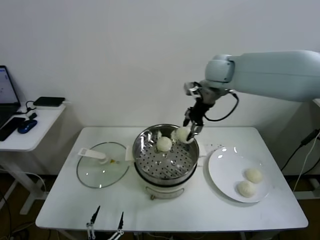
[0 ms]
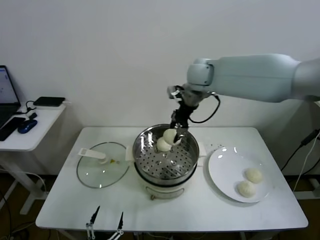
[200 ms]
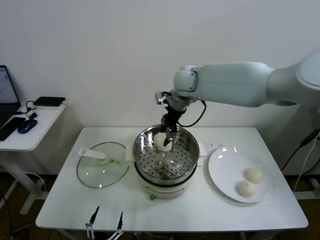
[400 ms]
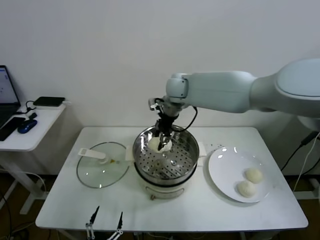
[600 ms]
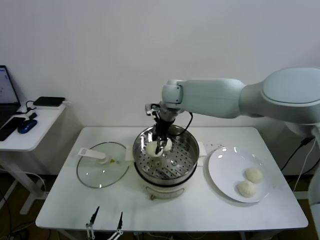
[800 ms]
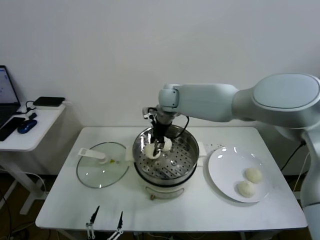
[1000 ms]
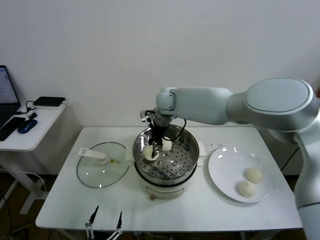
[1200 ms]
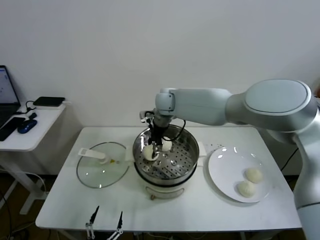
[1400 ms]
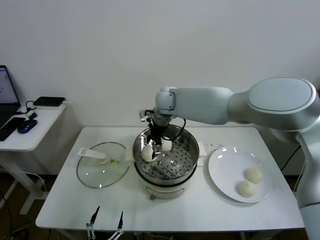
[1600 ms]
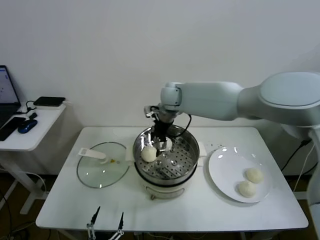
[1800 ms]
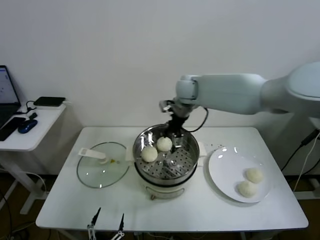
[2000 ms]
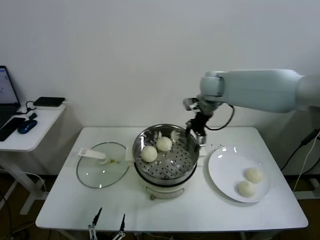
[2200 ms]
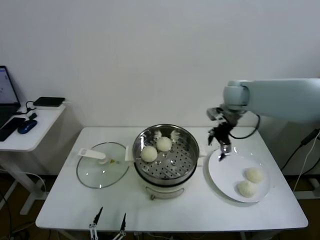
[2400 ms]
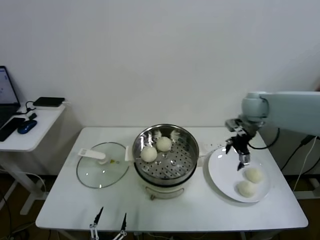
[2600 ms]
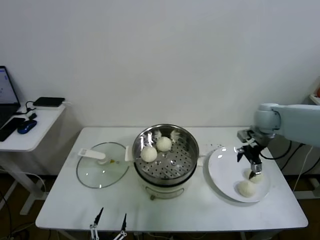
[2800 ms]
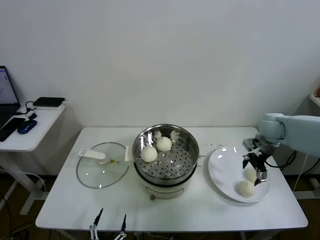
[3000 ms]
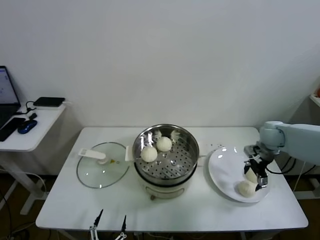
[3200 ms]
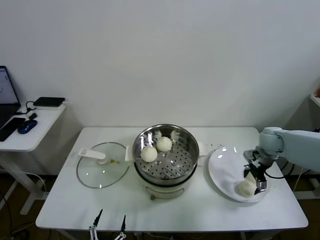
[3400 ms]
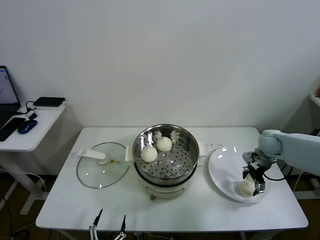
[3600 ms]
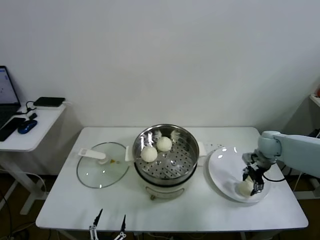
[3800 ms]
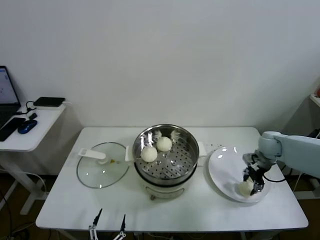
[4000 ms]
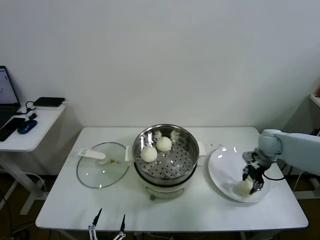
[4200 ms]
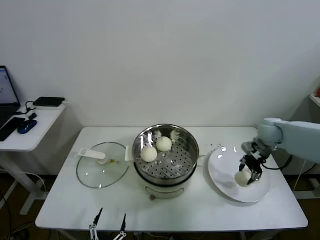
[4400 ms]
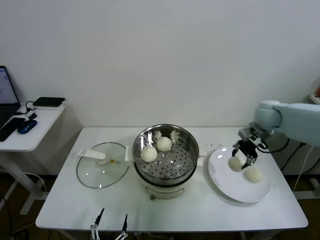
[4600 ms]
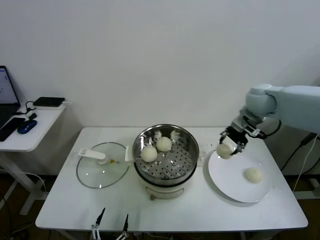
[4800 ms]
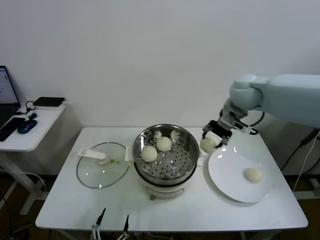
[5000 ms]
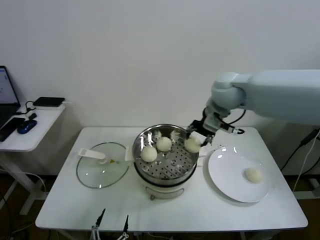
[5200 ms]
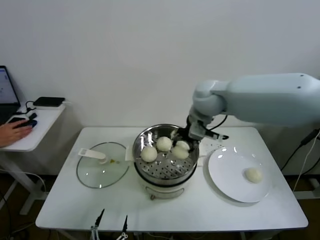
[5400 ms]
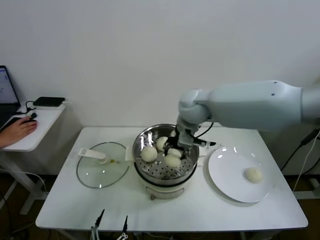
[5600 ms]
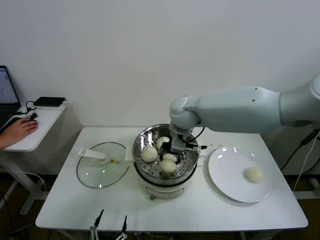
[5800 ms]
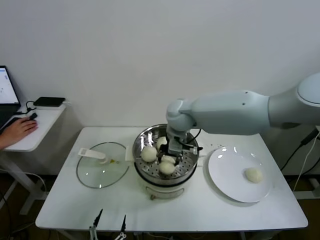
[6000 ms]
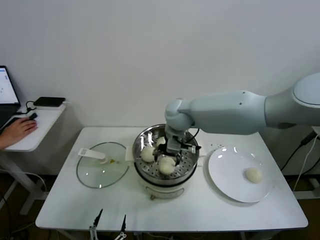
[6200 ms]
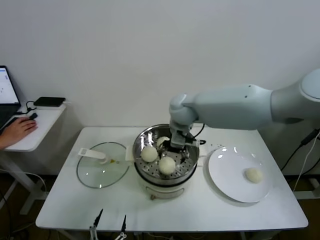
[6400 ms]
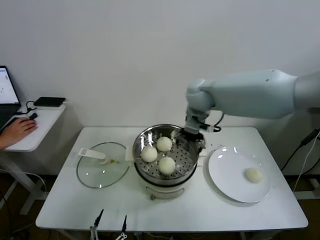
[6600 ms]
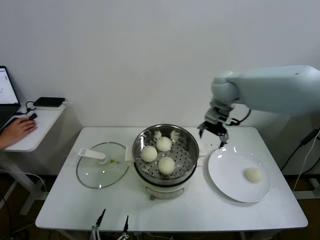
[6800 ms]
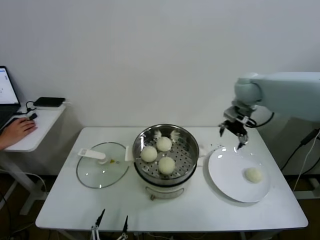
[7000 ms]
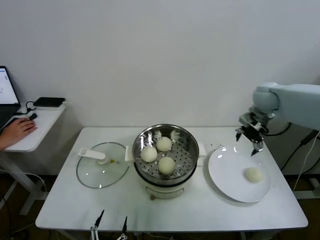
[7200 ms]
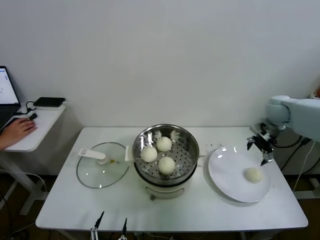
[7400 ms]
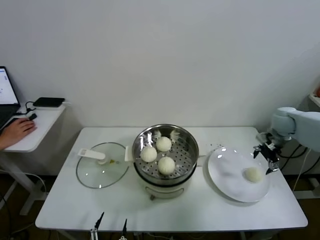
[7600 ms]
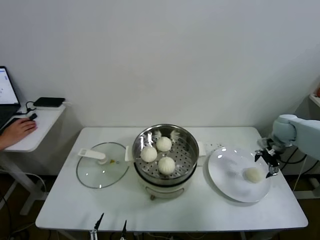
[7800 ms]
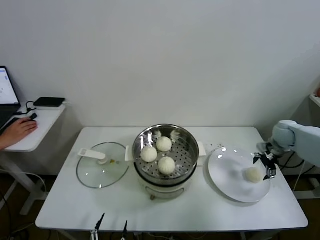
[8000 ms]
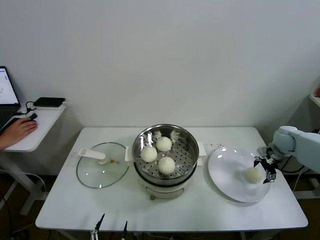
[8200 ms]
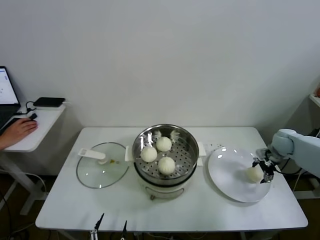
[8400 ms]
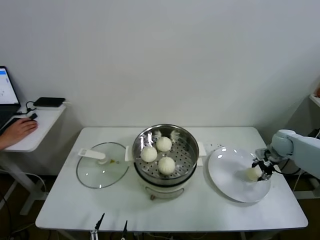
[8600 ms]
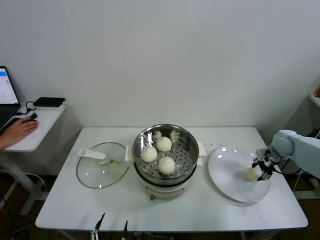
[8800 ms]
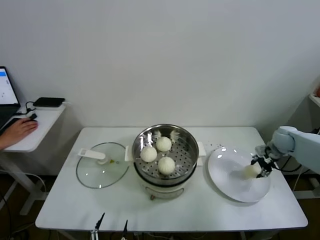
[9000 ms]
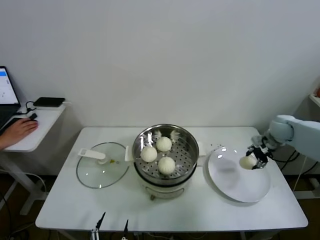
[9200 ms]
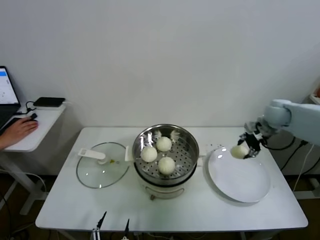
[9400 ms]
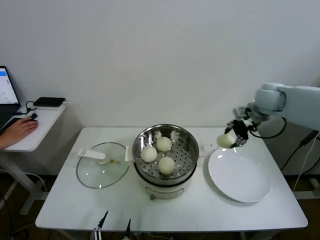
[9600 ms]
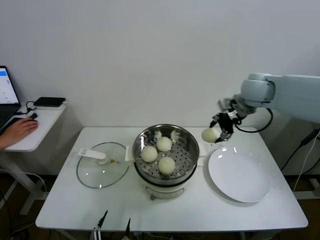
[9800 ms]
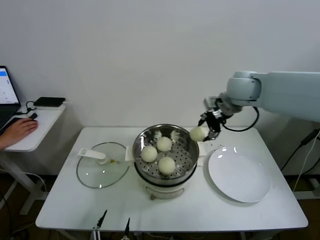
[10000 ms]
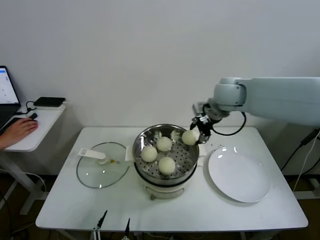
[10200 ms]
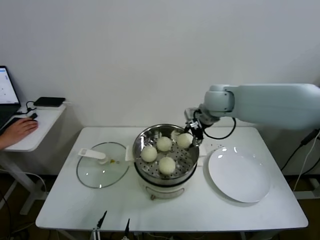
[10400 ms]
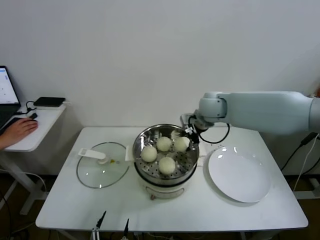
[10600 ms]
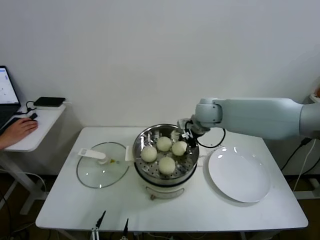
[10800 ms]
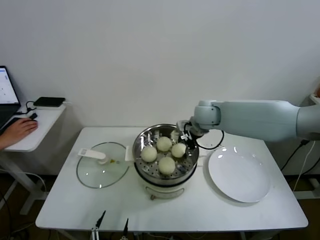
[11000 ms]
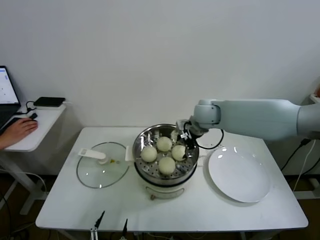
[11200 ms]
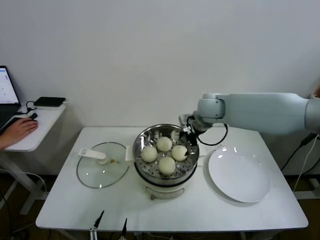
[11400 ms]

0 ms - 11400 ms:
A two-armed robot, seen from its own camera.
Task of the whole recording: take steamed baozi put them in steamer.
Step, 0 ms - 1400 ms: Place the baozi on the steamer with right gripper.
Step, 1600 ms - 3800 ms: Grasp the baozi in the plate with right gripper.
Step, 4200 ms - 6200 ms: Place the baozi on the steamer with right gripper.
Step, 6400 ms - 8600 ms: Grasp the baozi in the plate with right gripper.
Step, 8800 ms - 11200 ms: Place the baozi on the steamer with right gripper.
0 ms - 1400 ms: The right gripper shifts roughly 20 cm to the left and downward.
1400 ms - 2800 ms: The right gripper goes about 35 cm to the right, and opens its fingers.
2800 ms - 4200 ms: The right gripper shifts some 10 cm downward, and closes its fingers.
4200 ms - 5600 ms: The right gripper heads to the left and upward, covering roughly 35 cm.
5600 ms - 7200 ms: The right gripper moves to the right, roughly 25 cm, and opens.
7200 ms - 8600 ms: The right gripper goes about 20 cm downward and to the right, and closes.
8600 ms - 10000 ms: The right gripper is displaced upward and to the left by some 35 cm.
10000 ms - 11400 ms: The right gripper shifts some 10 cm downward and to the left, and opens up.

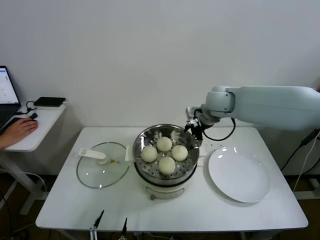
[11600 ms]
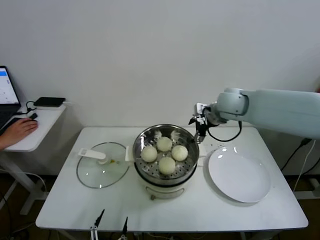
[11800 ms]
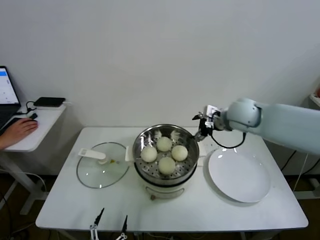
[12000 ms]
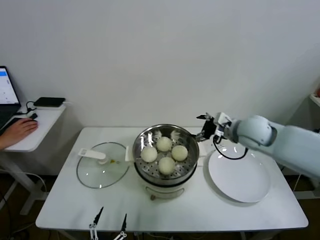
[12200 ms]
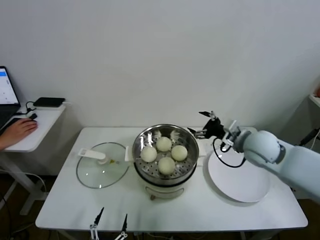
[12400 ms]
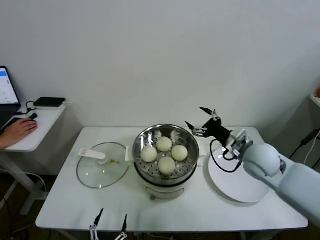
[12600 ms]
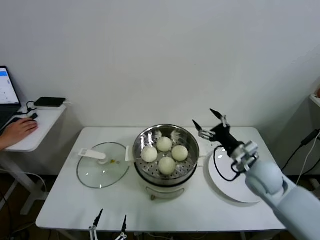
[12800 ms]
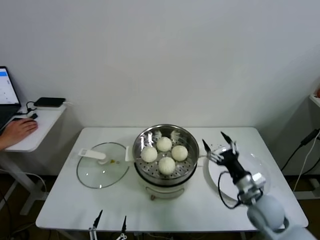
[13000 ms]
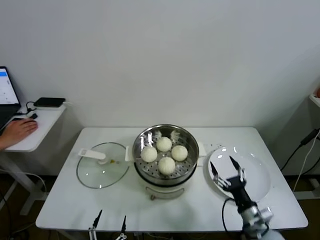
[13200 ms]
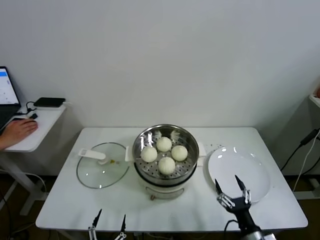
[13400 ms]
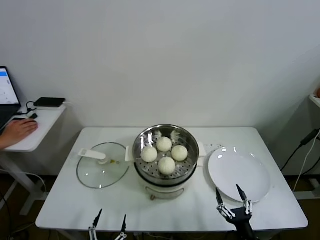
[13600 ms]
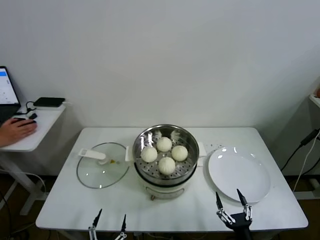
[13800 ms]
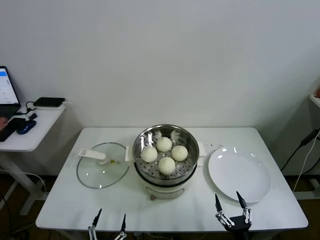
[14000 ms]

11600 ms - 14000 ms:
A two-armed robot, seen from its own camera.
Task of the whole recording: take steamed baozi put them in steamer.
11600 ms - 12800 ms: The right gripper shifts approximately 25 cm backward, downward and to the right.
12800 ms - 14000 ms: The right gripper moves backward and downward, approximately 35 cm.

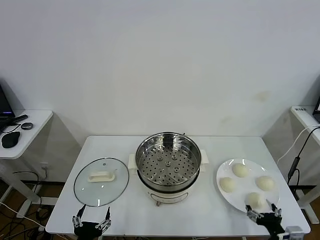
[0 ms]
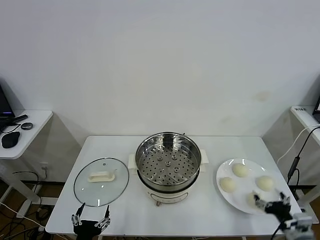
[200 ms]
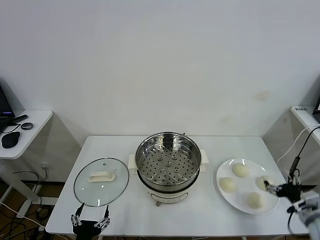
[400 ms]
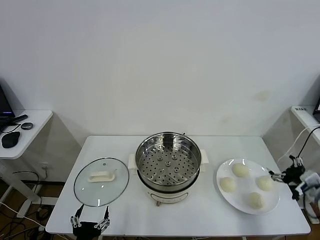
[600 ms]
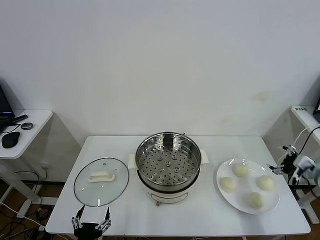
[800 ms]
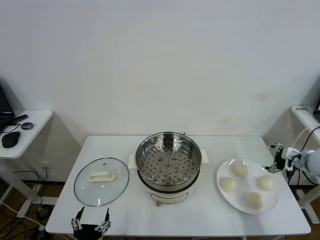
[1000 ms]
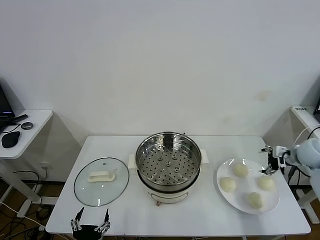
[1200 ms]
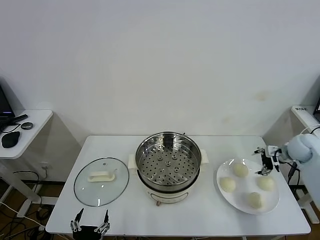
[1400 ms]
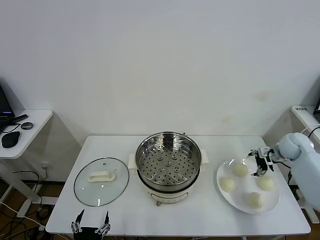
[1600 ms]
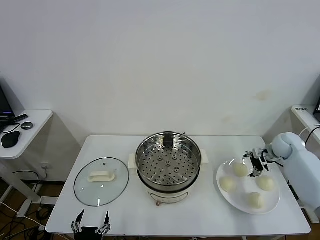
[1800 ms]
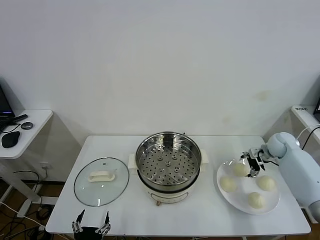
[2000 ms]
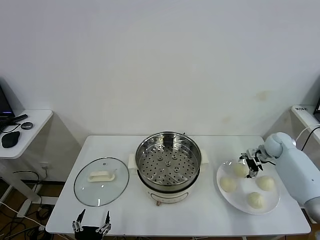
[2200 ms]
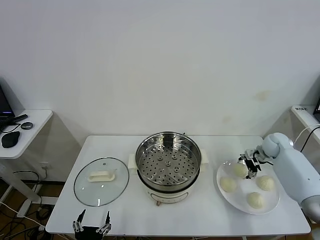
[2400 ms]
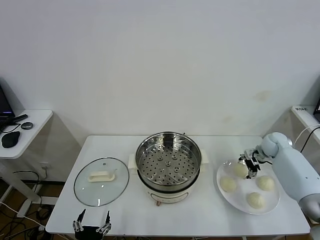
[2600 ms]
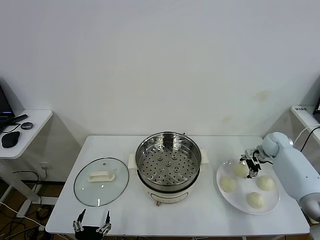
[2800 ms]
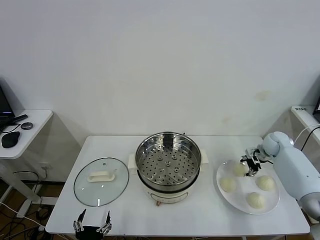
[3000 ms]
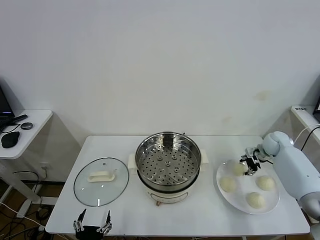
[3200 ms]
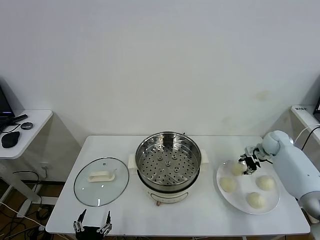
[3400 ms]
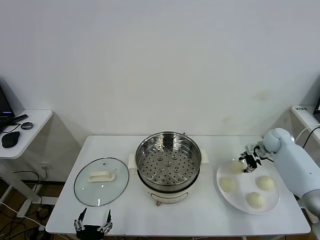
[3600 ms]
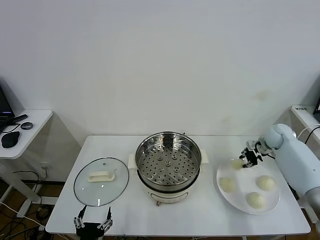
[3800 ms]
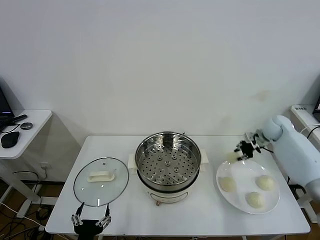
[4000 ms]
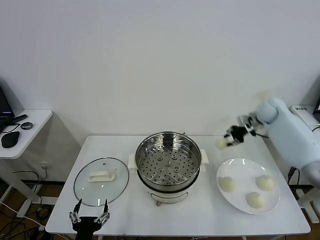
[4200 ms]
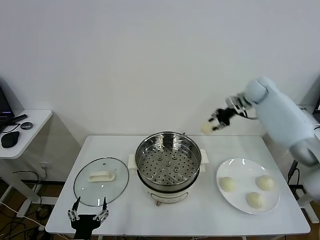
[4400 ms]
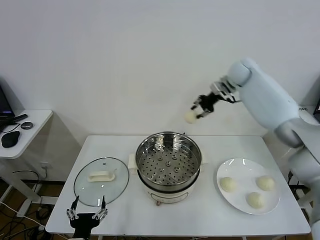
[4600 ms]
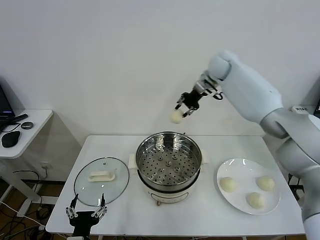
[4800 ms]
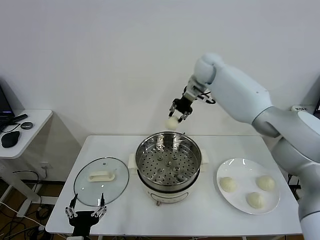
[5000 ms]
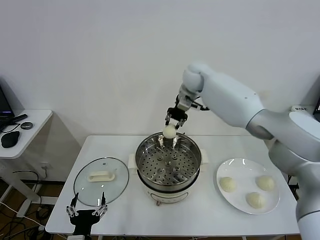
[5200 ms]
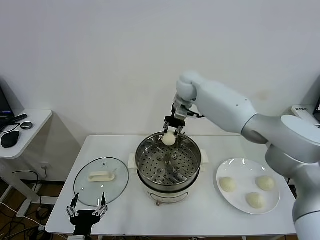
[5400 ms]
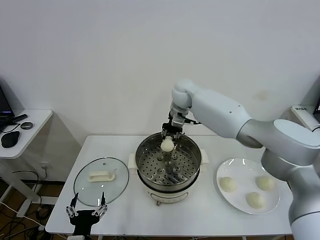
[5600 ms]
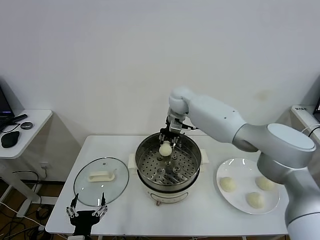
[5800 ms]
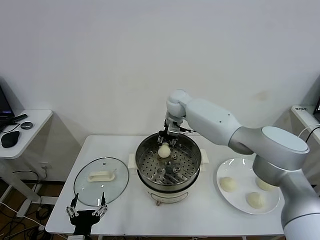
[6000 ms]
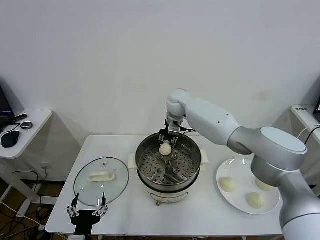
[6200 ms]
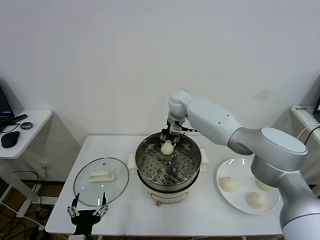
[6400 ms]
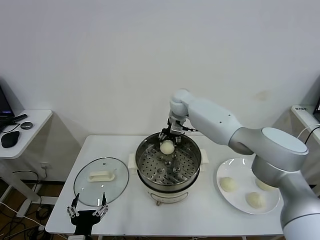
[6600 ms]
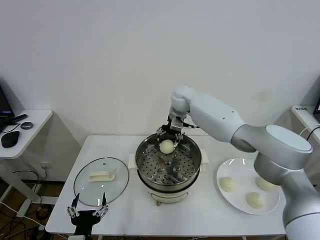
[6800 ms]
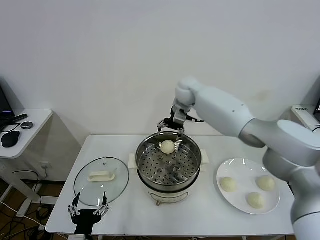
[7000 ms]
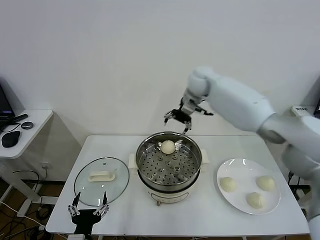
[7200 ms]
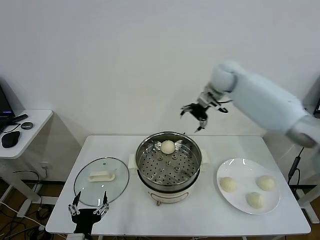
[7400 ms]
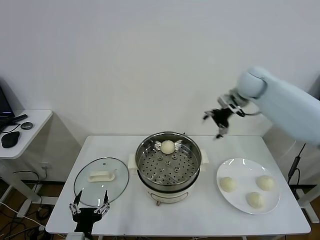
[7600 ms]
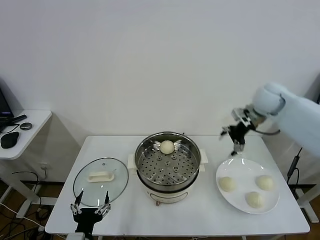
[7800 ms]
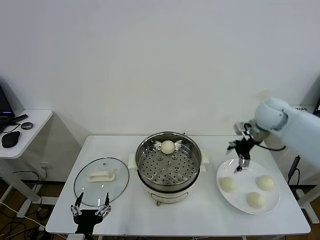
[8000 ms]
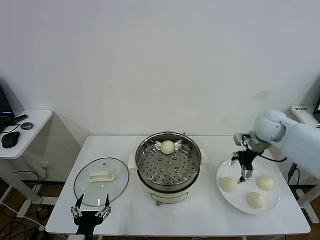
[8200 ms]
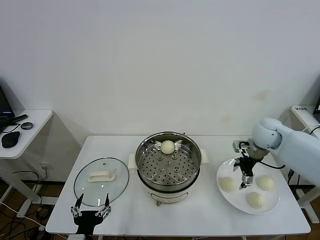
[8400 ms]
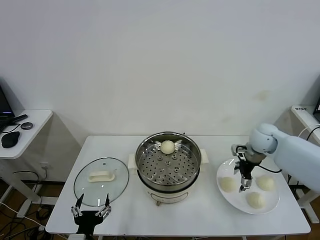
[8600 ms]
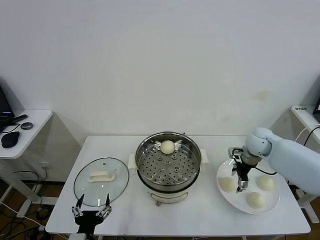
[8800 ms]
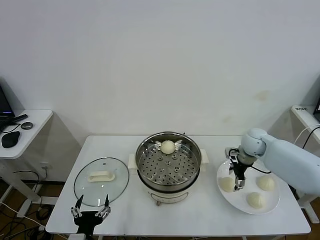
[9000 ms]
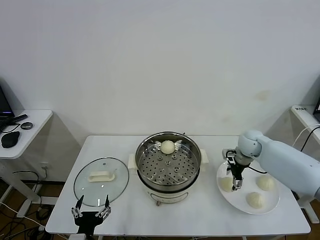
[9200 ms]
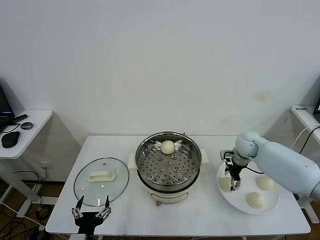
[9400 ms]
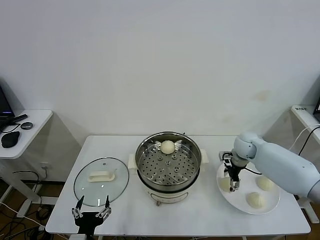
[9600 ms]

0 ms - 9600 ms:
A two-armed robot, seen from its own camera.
Task of the whole recording: take steamed baozi put them in steamer.
Step, 0 ms - 2800 ms: Grasp the baozi in the plate with right gripper.
Step, 3000 ms - 6800 ms: Place the baozi on the steamer with right gripper.
1600 ms - 3200 ms: The right gripper changes place by about 5 cm, and closes up.
3200 ms - 4800 ms: The right gripper moves upward, to the left and forward, roughly 40 cm, and closes up.
4800 ms - 6400 ms: The right gripper goes some 20 cm downward and to the left.
6400 ms - 8000 ms: The right gripper shifts some 30 cm to the right and backward, and opens up.
8000 ms - 9600 ms: The right gripper heads downward, covering approximately 15 cm.
